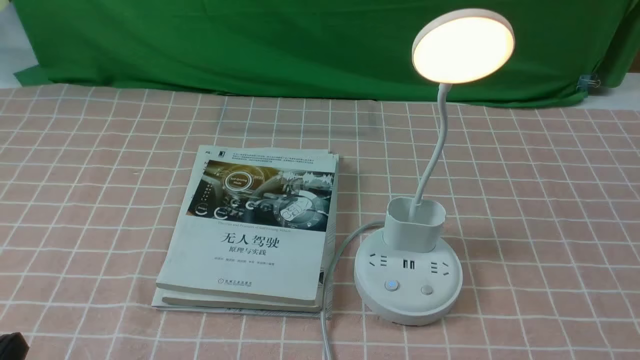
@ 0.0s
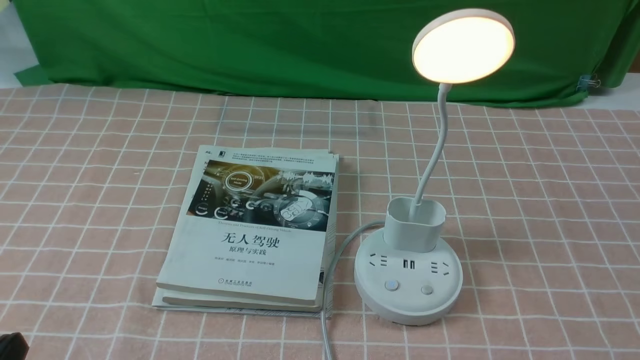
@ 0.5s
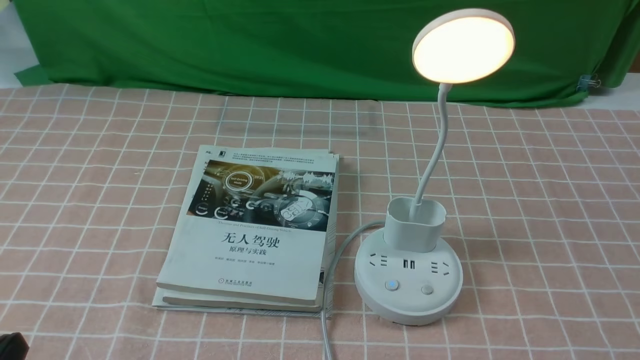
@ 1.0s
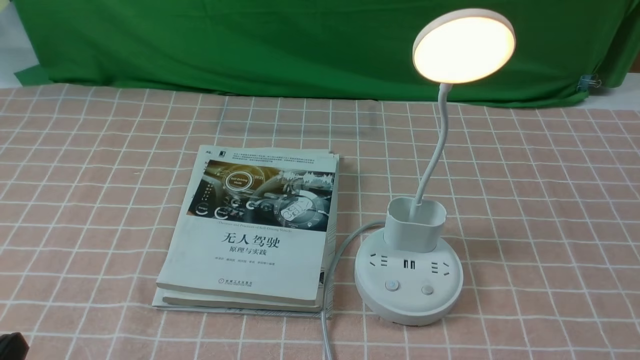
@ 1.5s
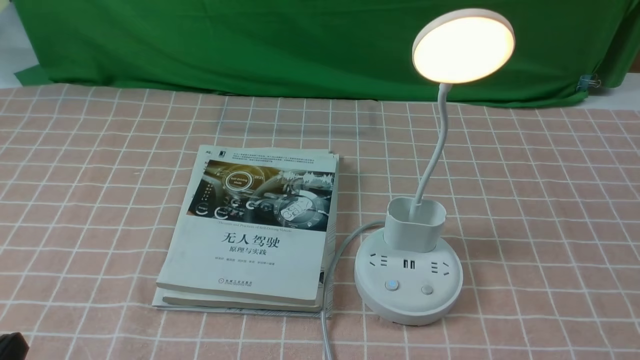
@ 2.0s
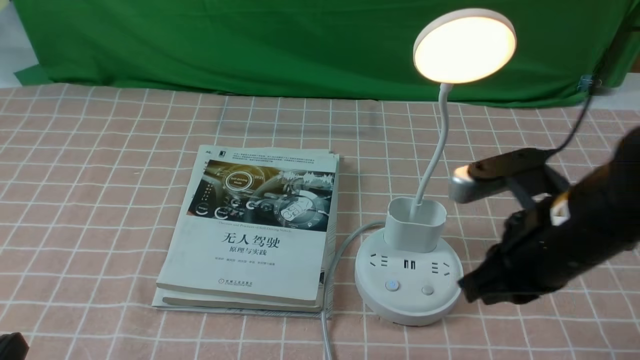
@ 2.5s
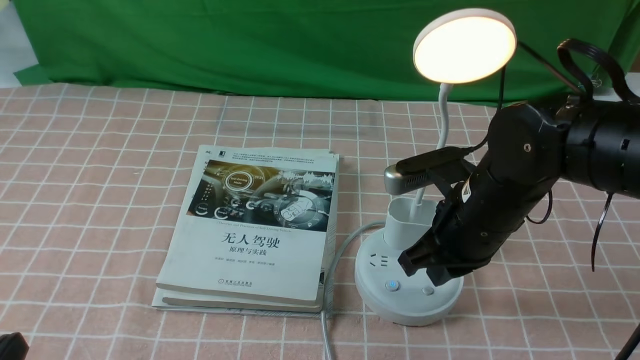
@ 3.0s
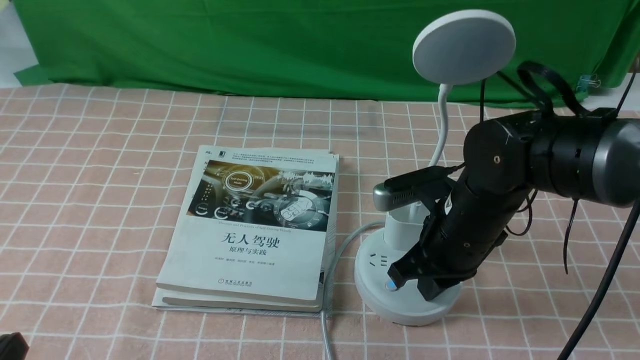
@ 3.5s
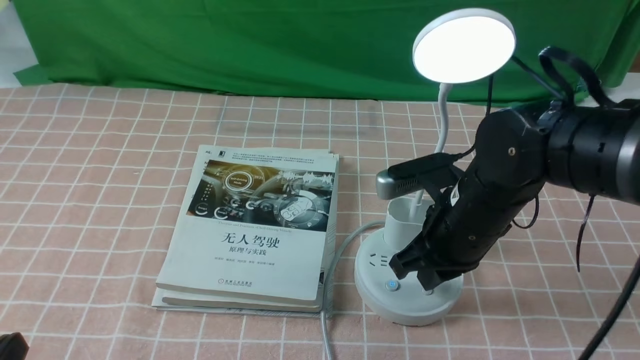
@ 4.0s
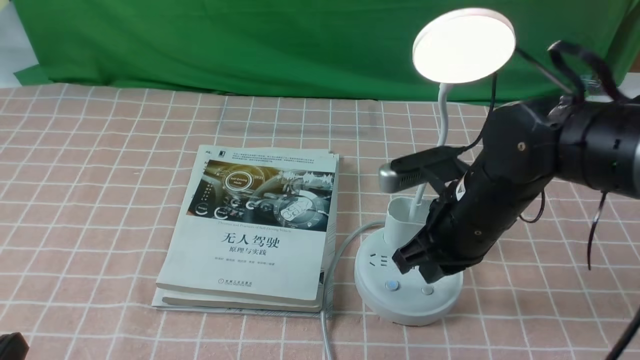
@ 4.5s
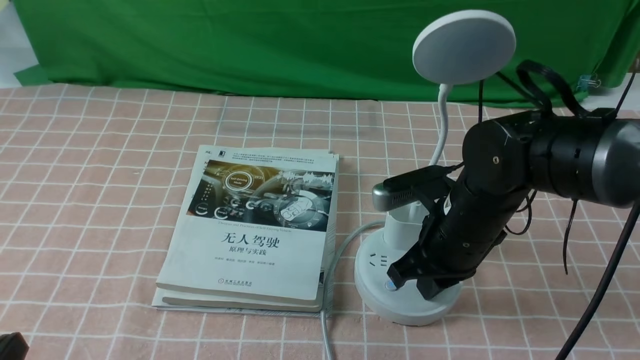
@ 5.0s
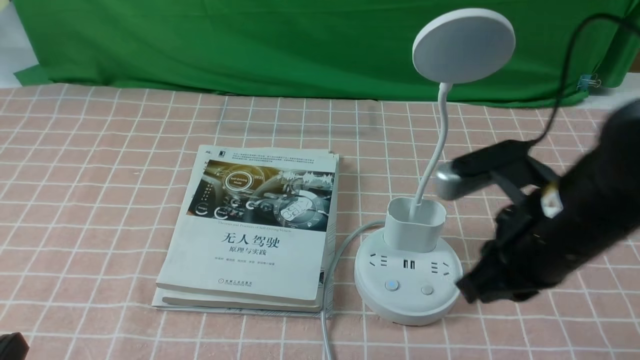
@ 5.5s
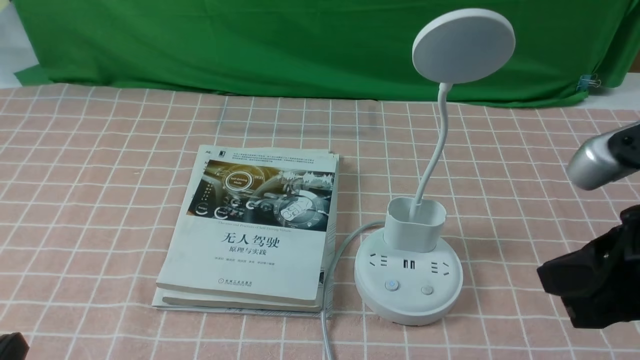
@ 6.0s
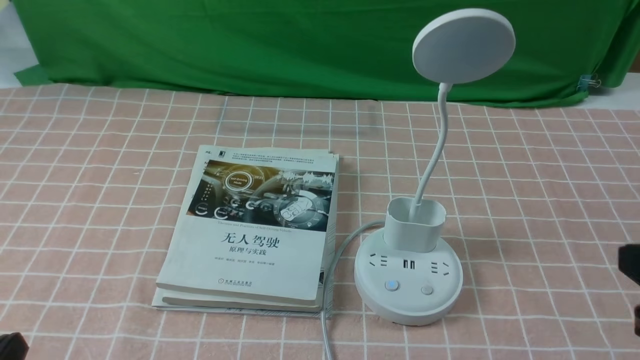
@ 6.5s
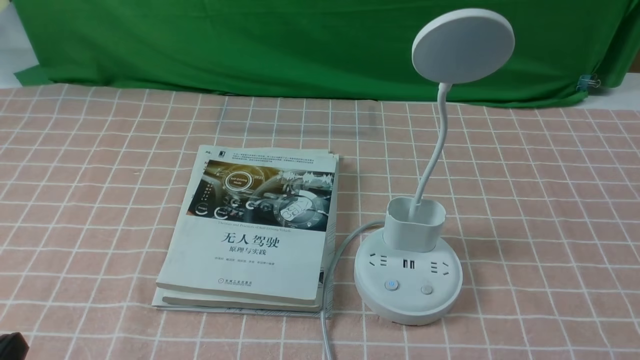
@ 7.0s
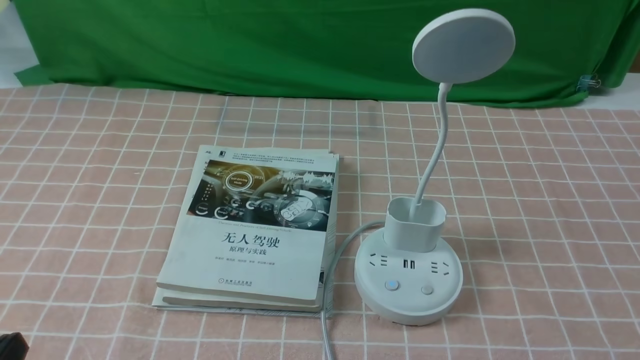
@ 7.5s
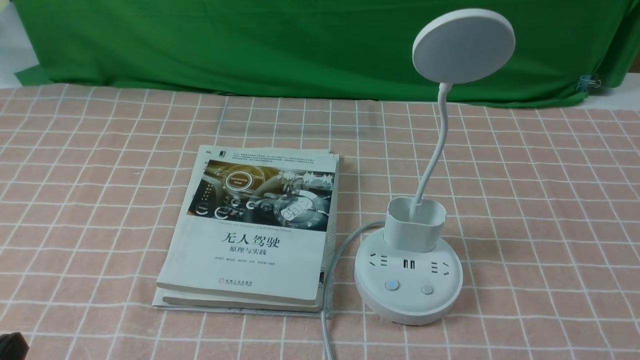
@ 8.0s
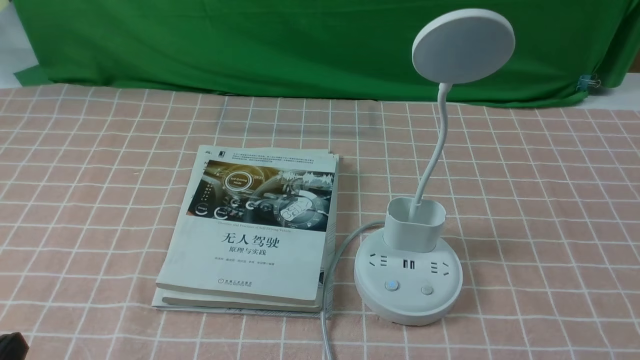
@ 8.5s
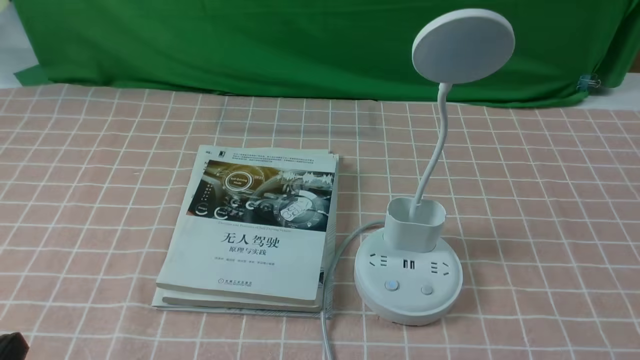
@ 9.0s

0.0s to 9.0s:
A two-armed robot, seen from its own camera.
Task of the whole recording: turn off the table lamp on the pink coffee tablecloth by hand.
Step, 0.0s to 5.0s: use the right arm to press the button switch on the lamp holder.
2.0s to 4.5s: The right gripper travels forward, to the left and downward by approximately 25 cm.
4.5s to 7.0s: The right gripper moves backward and to the right, some 30 cm.
